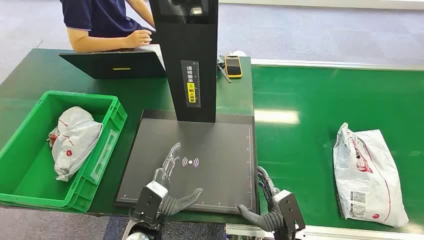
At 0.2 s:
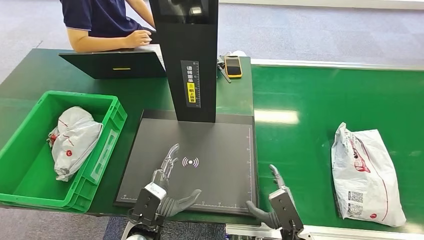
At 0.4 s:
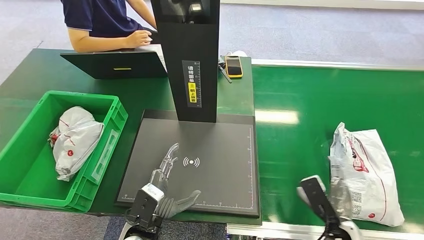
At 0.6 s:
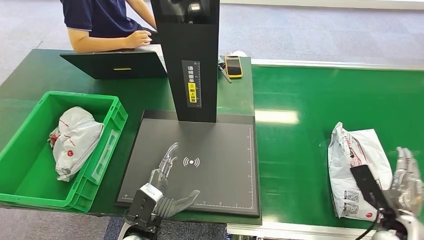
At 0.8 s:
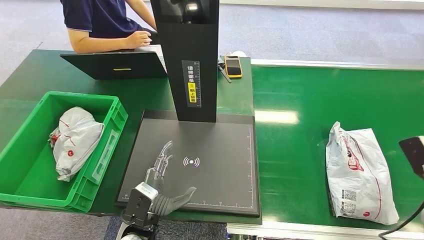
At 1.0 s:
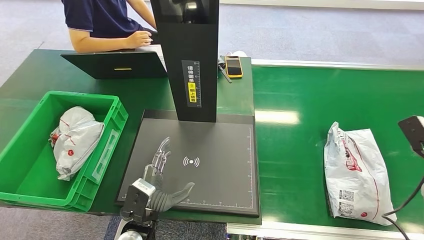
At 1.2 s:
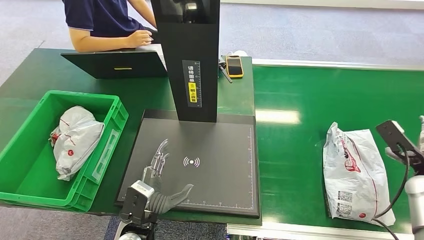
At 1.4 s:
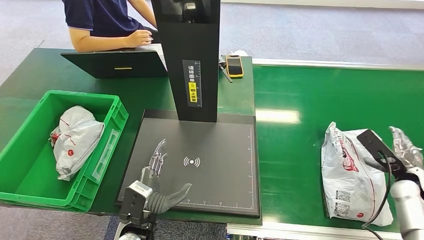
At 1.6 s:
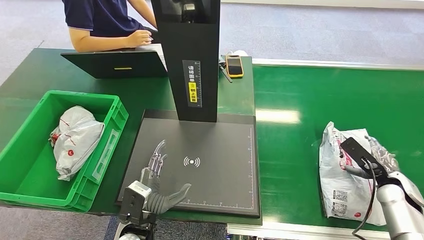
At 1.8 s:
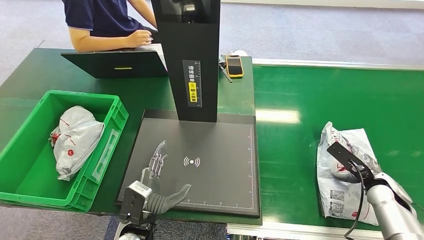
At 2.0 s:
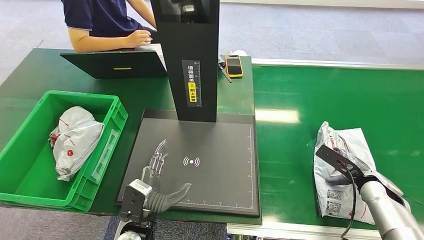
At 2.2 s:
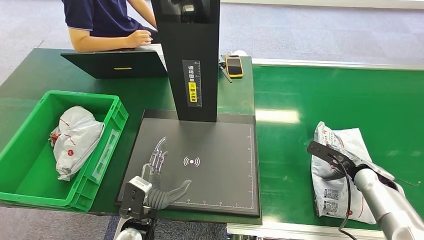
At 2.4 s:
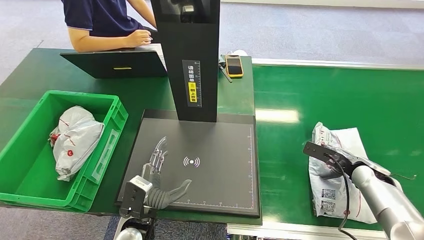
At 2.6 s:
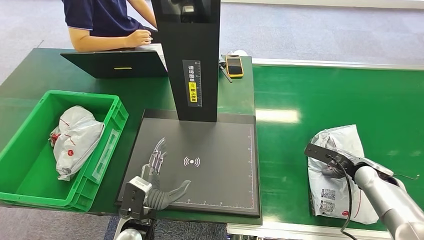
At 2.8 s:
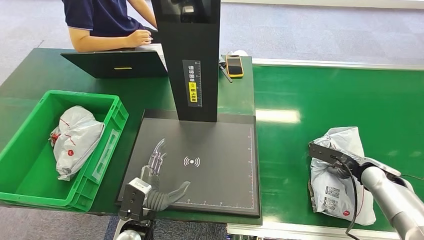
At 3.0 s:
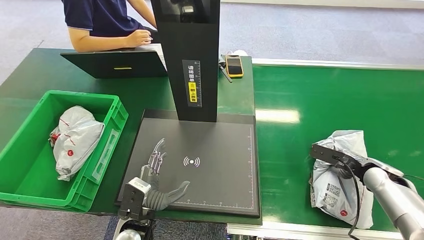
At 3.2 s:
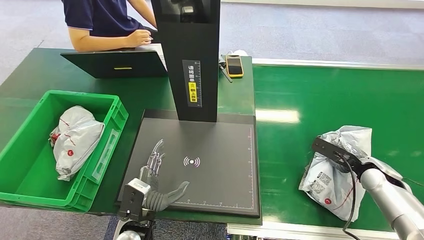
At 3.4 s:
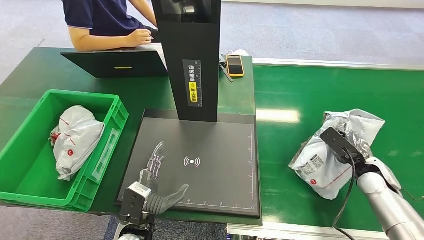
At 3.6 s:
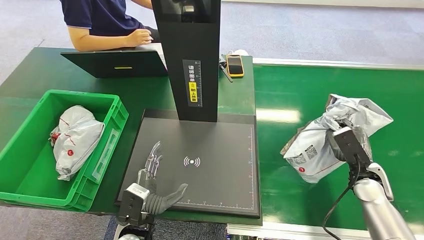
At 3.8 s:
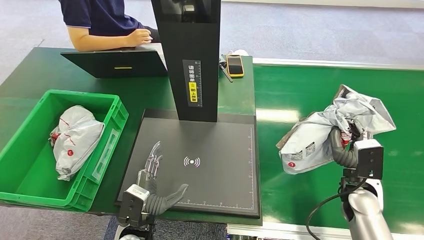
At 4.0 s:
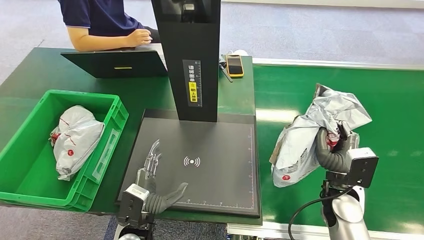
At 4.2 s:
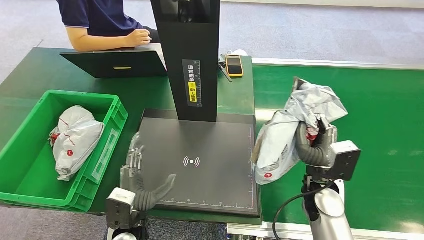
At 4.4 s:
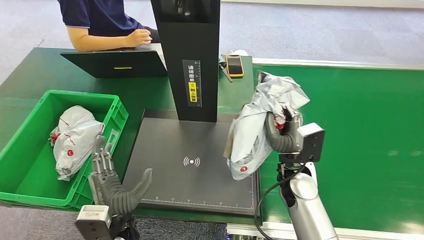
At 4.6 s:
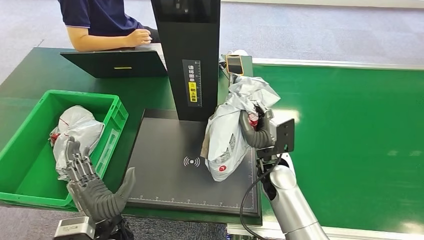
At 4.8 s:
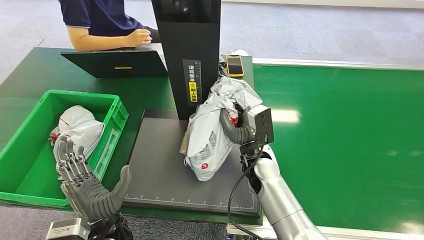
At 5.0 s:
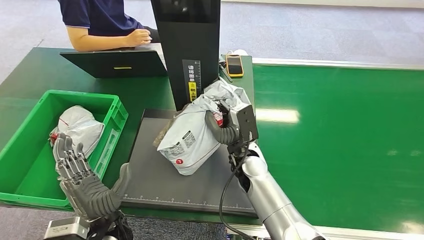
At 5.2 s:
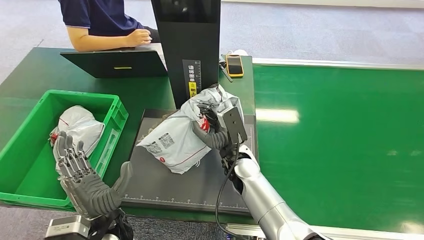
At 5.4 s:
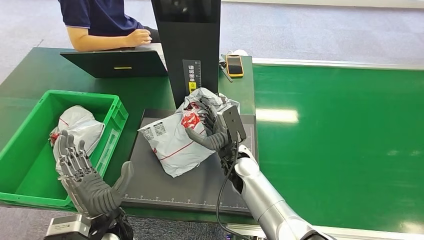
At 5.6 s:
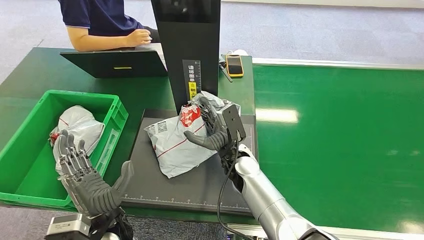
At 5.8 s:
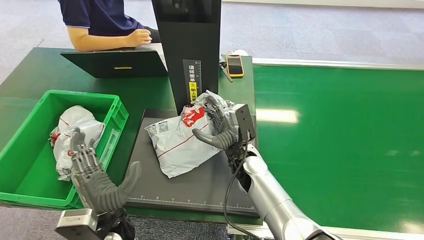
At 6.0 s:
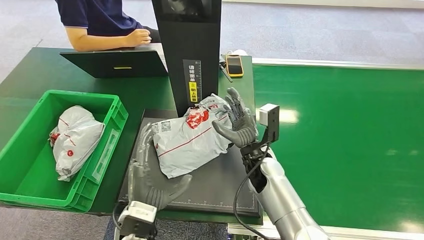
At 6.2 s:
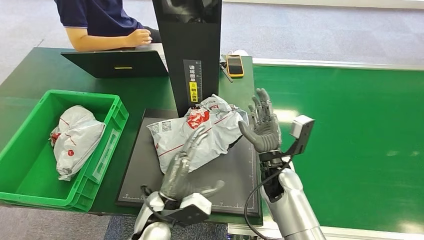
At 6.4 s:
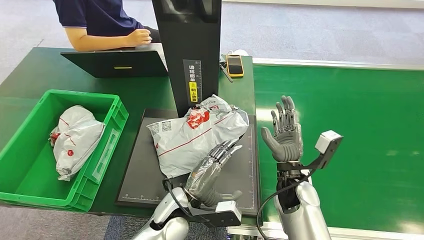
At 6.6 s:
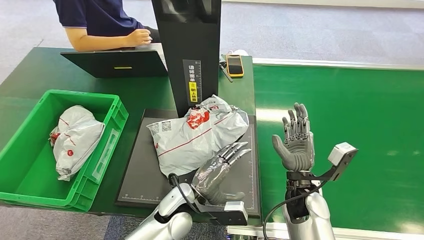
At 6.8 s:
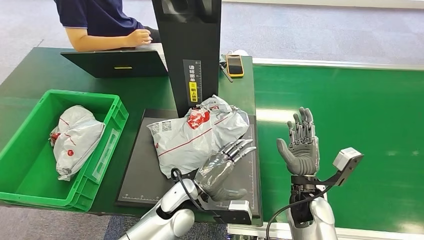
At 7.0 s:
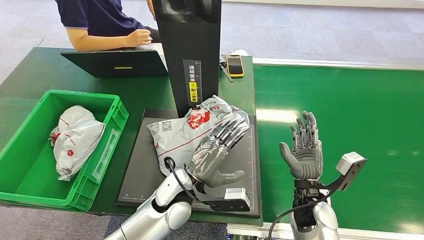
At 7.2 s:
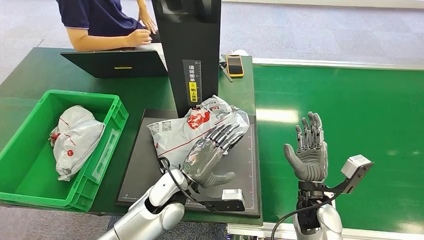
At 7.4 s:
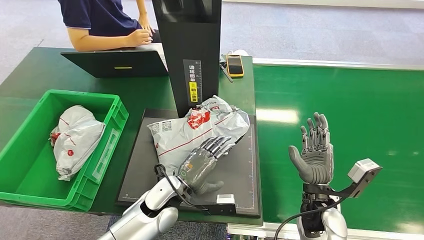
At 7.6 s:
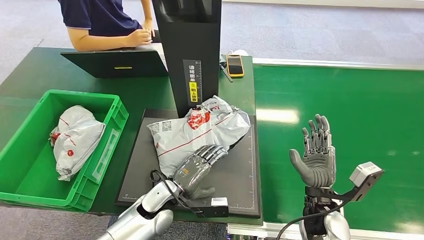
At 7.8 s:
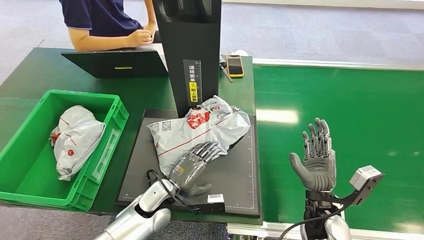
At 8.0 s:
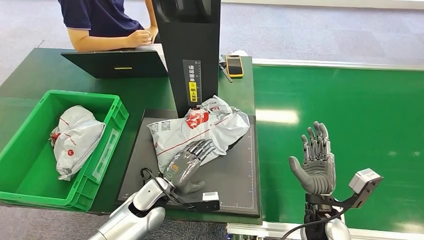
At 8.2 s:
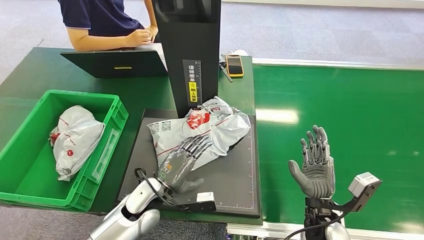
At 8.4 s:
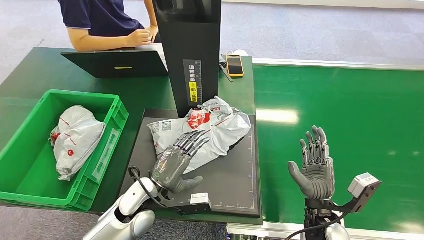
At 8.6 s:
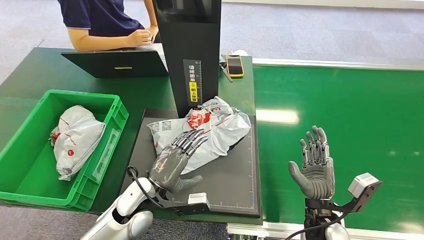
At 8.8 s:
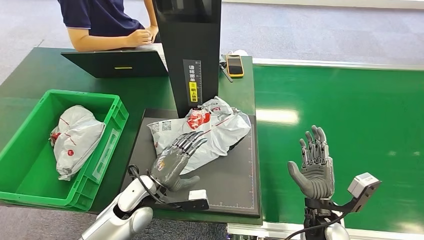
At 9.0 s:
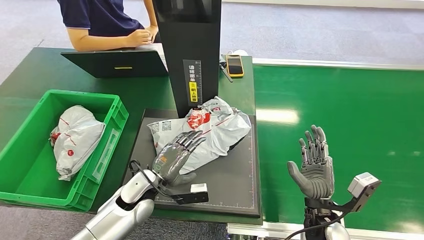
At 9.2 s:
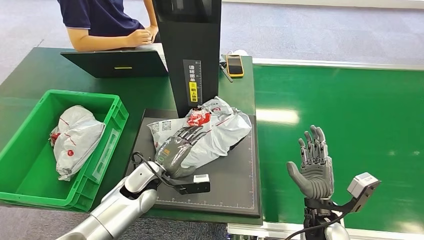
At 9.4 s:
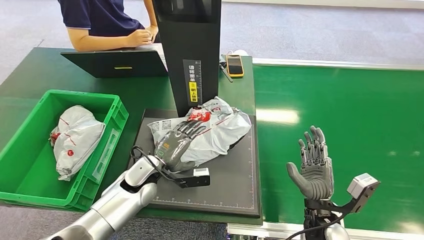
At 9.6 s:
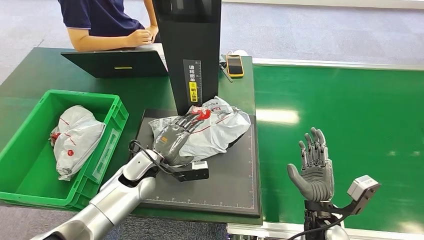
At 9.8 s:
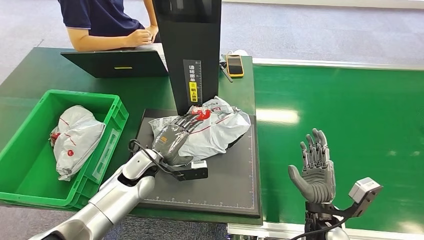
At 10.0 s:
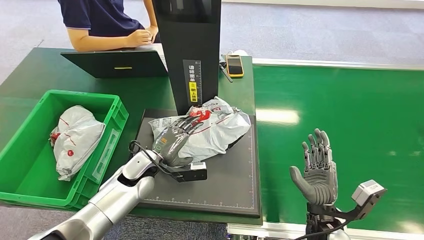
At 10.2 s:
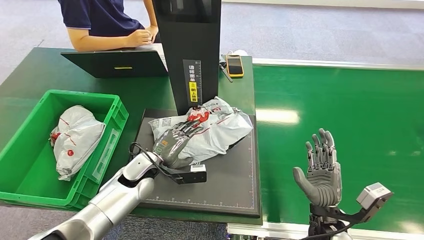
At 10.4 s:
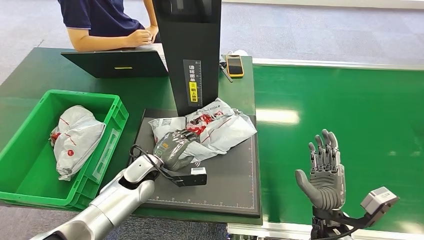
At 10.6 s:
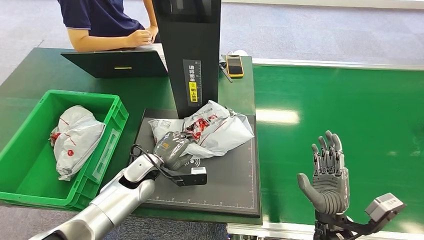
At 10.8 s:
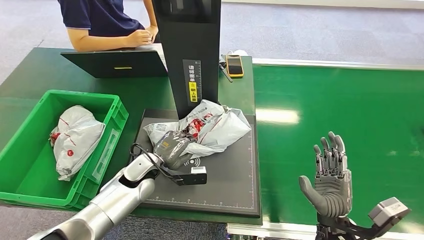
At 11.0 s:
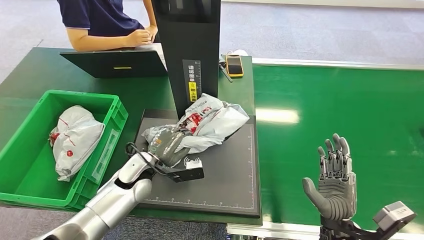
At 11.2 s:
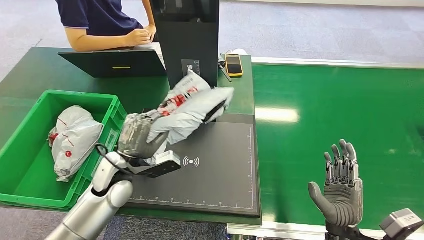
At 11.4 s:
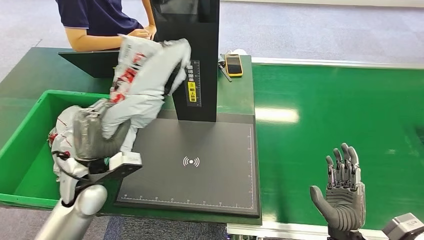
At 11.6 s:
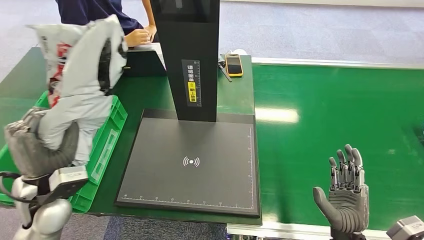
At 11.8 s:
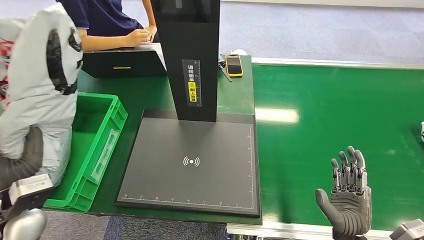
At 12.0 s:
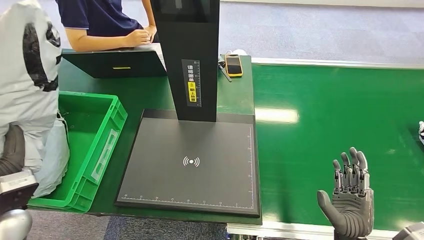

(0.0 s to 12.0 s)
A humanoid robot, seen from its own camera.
Step, 0.0 s - 3.6 s: Pick up the package from the conveyor belt.
Step, 3.8 s - 6.8 s: Place the package onto the inbound machine.
Step, 7.0 s - 11.2 s: Pick up the package from the inbound machine.
6.0 s - 7.6 s: The left hand is displaced forward and downward by some 10 cm, and reaches about 10 cm to the right, then returns. The right hand is displaced to the right and backward by roughly 15 cm.
7.6 s - 9.0 s: The left hand goes roughly 5 cm to the left.
9.0 s - 10.4 s: The hands move only a little.

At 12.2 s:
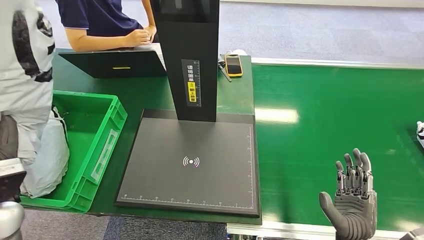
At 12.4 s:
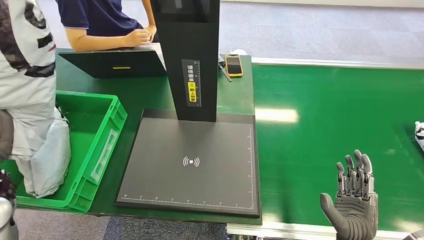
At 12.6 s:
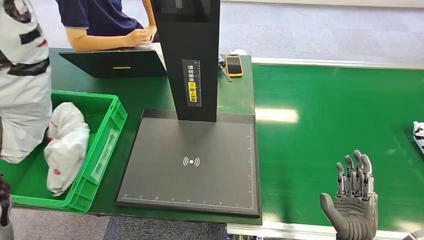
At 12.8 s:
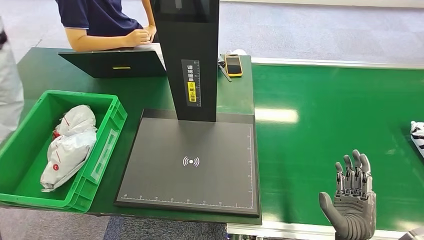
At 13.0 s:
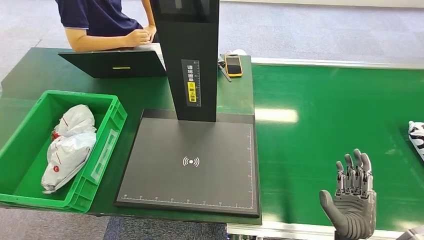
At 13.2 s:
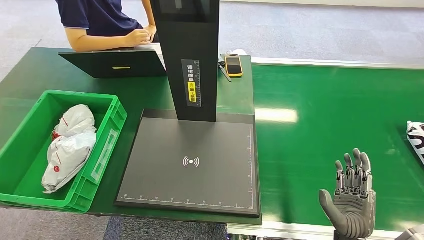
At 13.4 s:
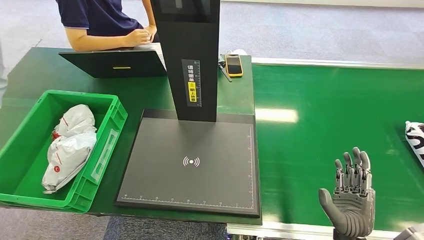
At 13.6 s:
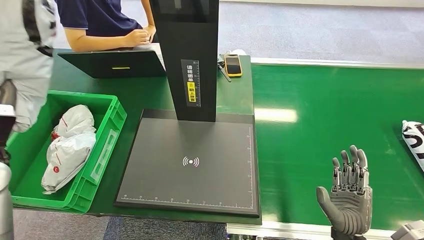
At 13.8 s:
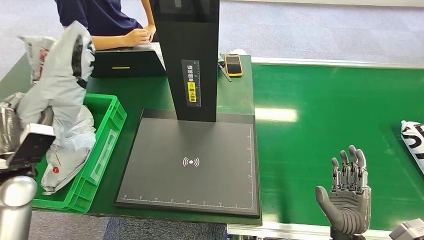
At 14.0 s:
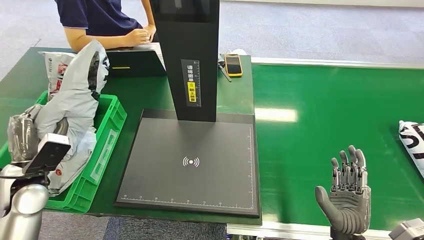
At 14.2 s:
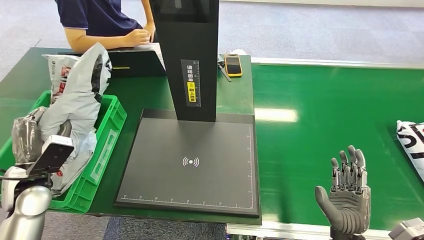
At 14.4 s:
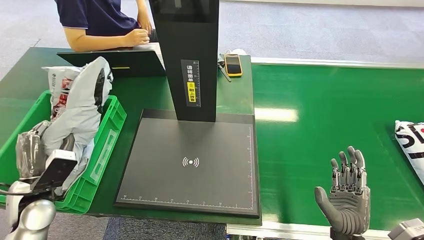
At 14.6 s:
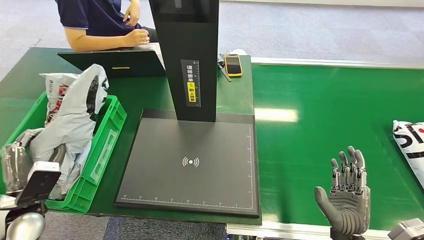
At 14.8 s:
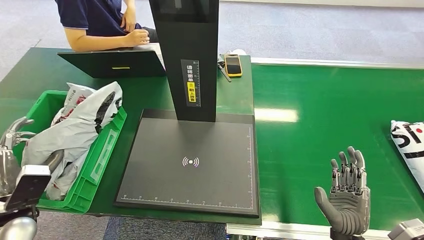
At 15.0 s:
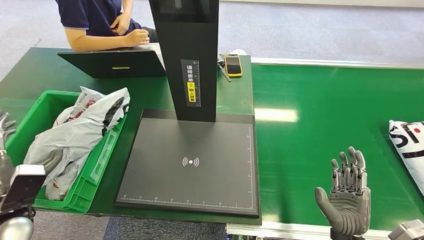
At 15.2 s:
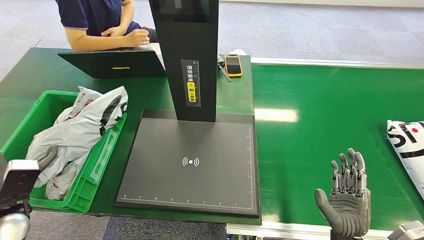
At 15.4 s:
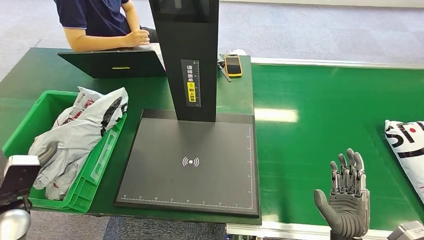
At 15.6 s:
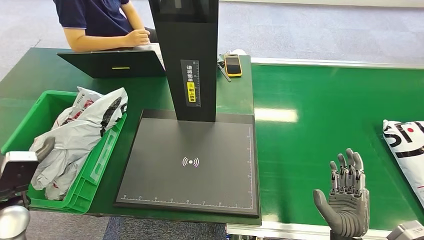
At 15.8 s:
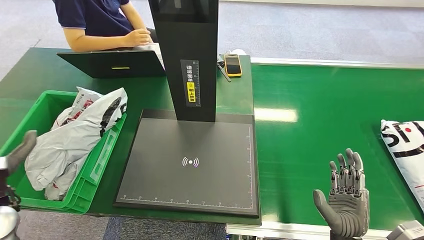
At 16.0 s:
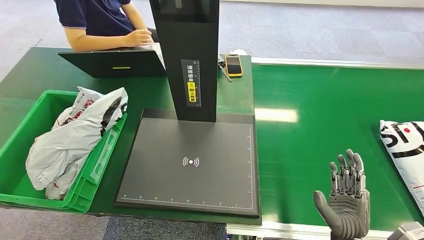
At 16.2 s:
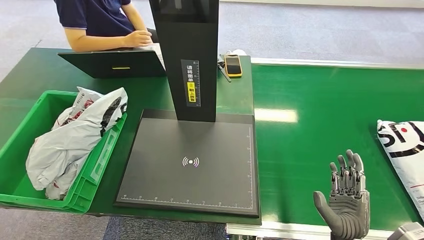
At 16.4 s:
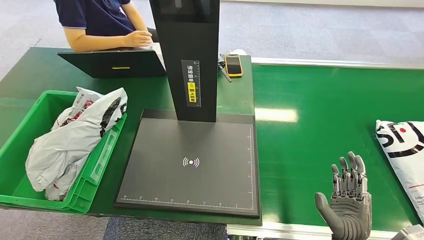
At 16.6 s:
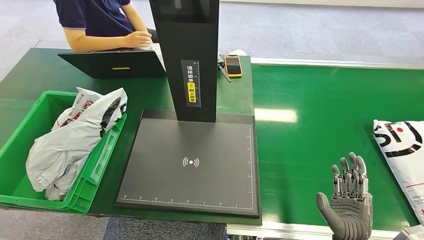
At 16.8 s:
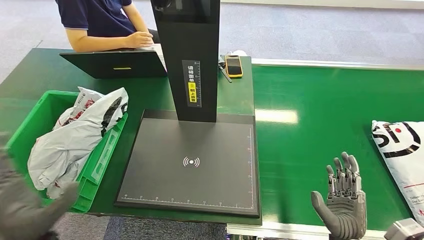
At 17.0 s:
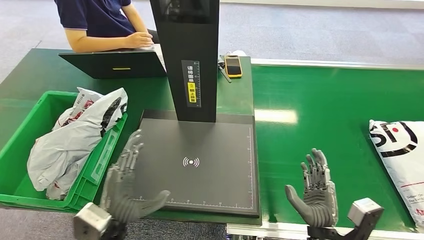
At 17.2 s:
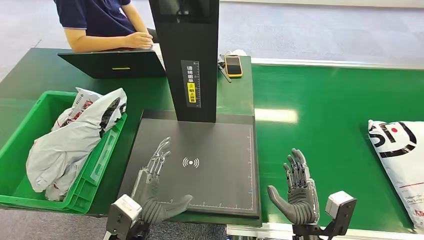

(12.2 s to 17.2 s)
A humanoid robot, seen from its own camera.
Step, 12.2 s - 17.0 s: Place the package into the parcel locker.
12.2 s - 13.8 s: The left hand is displaced forward by about 5 cm, and moves roughly 10 cm upward and comes back.
13.8 s - 15.6 s: The left hand moves backward, approximately 5 cm.
15.6 s - 17.2 s: The left hand is displaced to the right by approximately 25 cm. Meanwhile the right hand moves to the left, about 5 cm.
